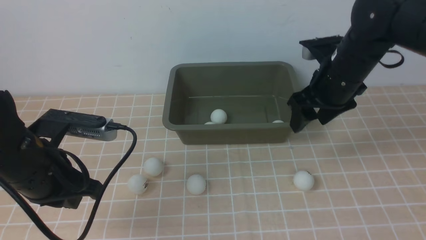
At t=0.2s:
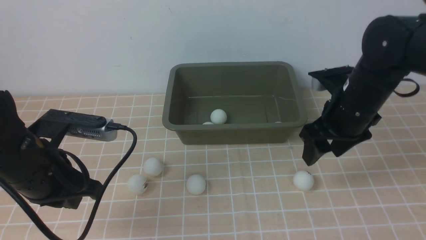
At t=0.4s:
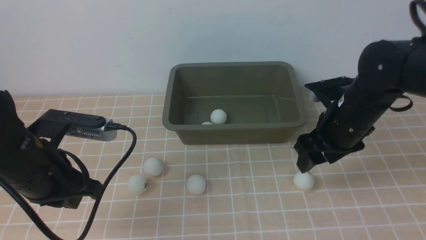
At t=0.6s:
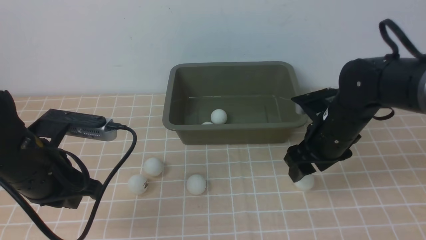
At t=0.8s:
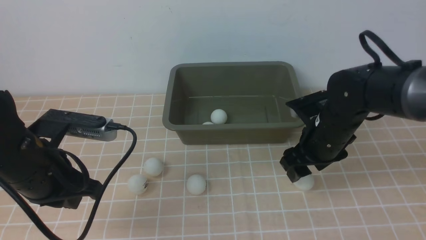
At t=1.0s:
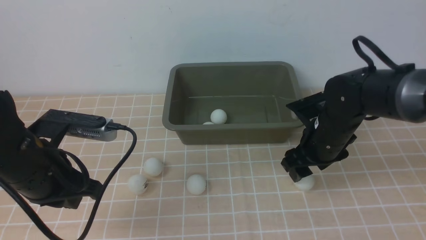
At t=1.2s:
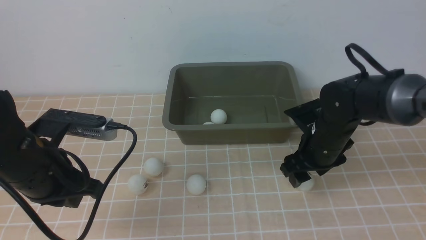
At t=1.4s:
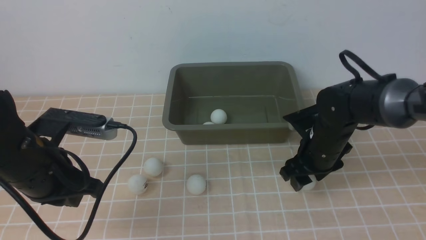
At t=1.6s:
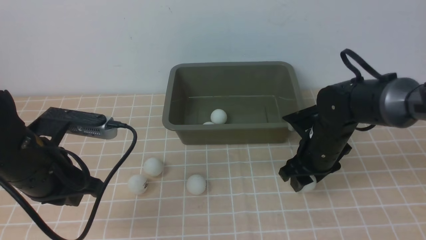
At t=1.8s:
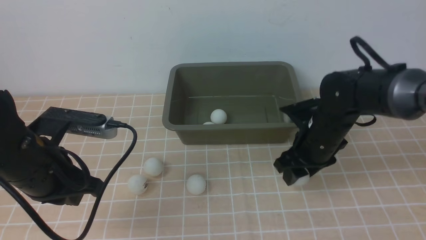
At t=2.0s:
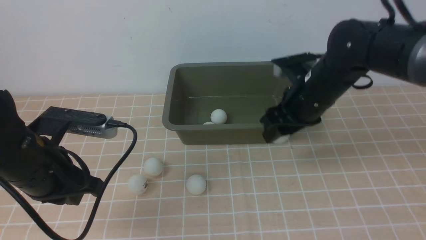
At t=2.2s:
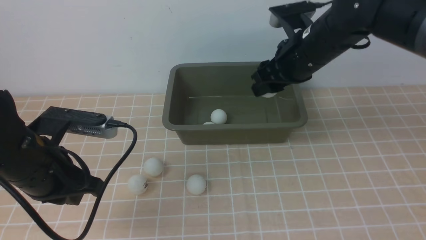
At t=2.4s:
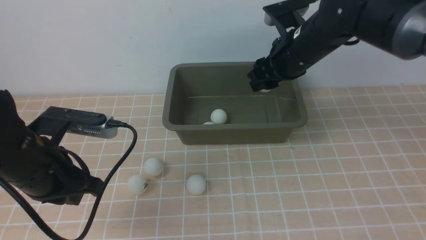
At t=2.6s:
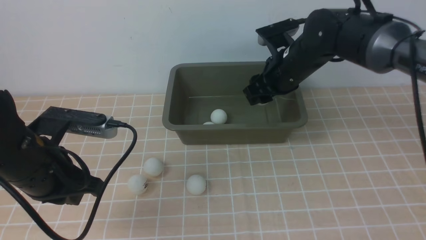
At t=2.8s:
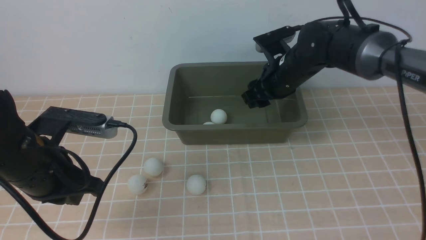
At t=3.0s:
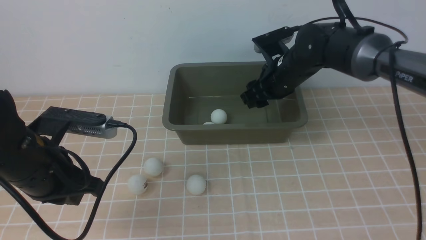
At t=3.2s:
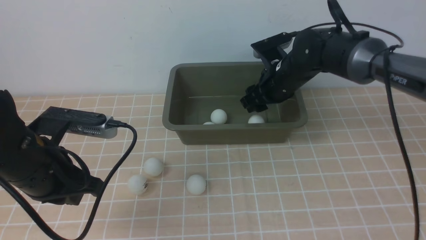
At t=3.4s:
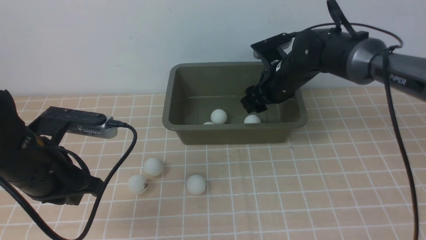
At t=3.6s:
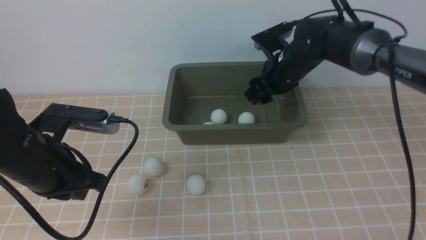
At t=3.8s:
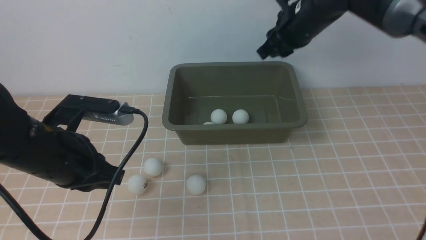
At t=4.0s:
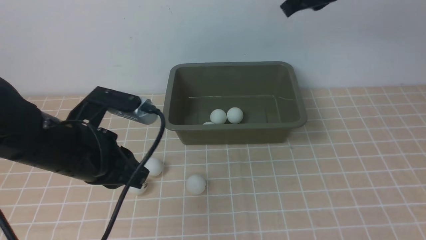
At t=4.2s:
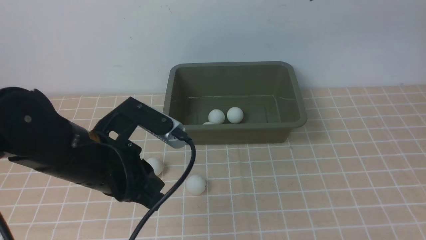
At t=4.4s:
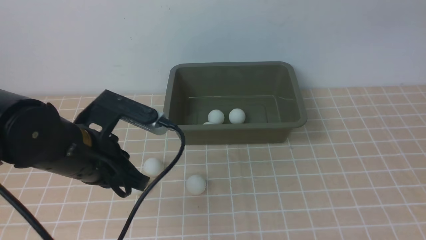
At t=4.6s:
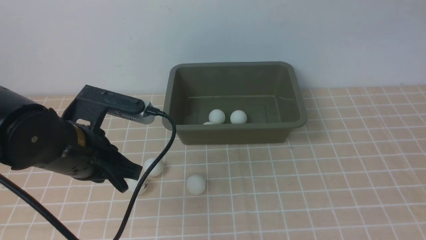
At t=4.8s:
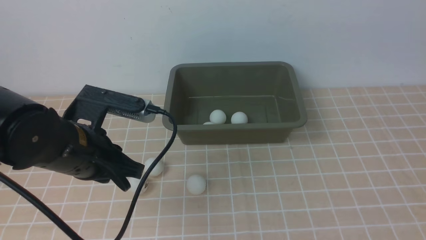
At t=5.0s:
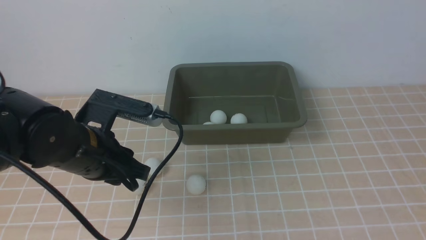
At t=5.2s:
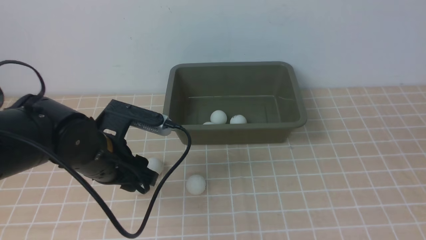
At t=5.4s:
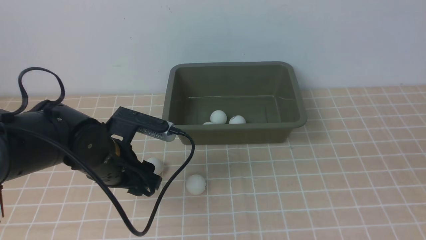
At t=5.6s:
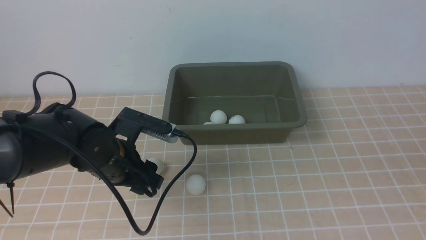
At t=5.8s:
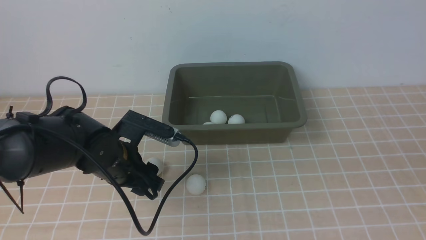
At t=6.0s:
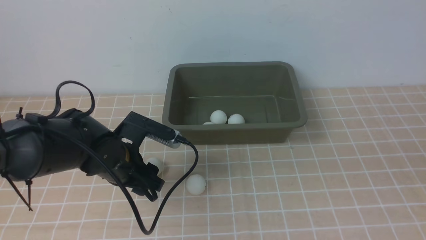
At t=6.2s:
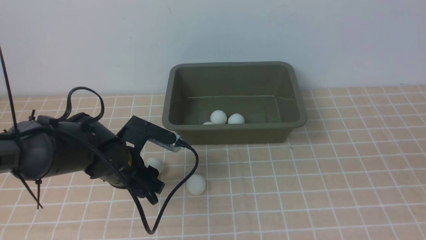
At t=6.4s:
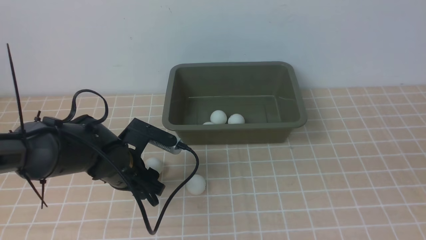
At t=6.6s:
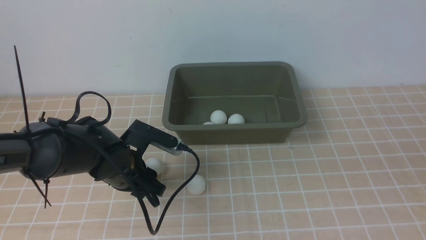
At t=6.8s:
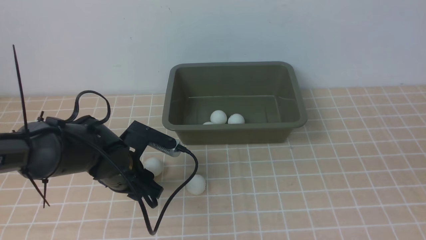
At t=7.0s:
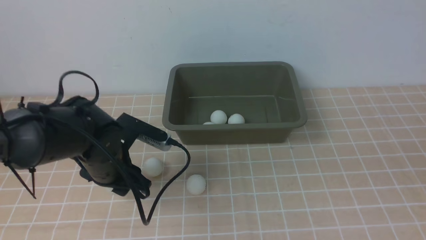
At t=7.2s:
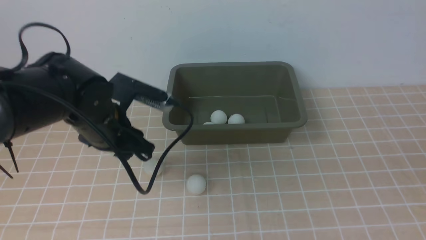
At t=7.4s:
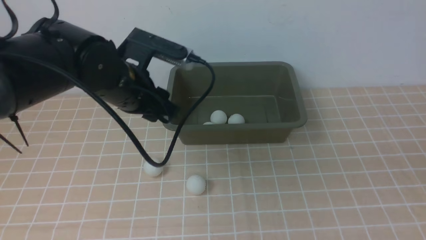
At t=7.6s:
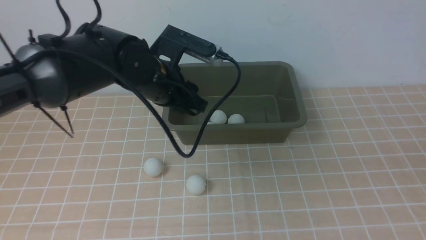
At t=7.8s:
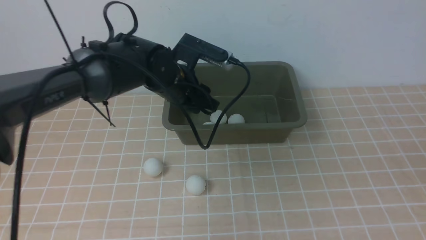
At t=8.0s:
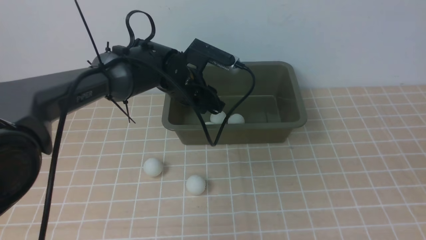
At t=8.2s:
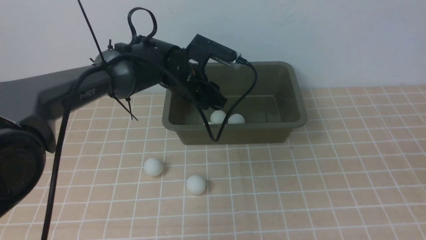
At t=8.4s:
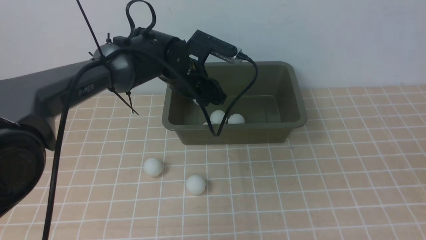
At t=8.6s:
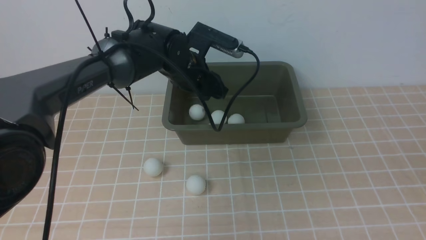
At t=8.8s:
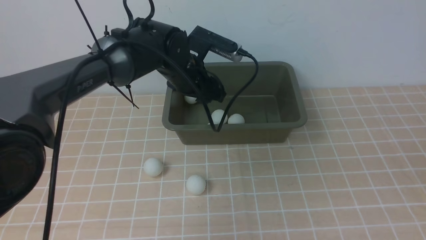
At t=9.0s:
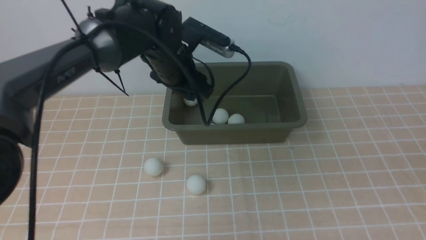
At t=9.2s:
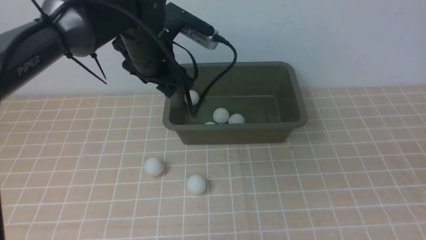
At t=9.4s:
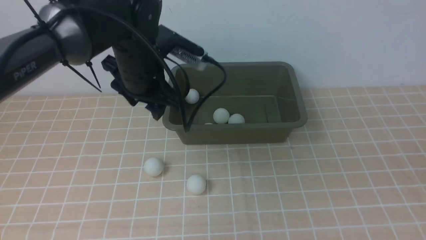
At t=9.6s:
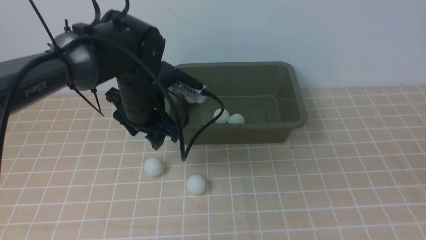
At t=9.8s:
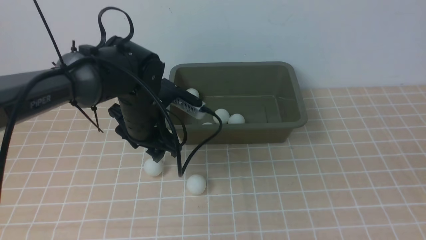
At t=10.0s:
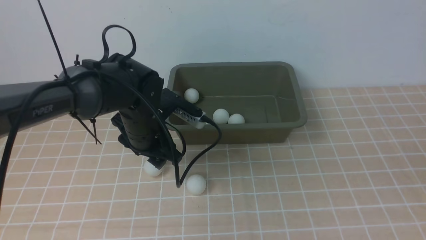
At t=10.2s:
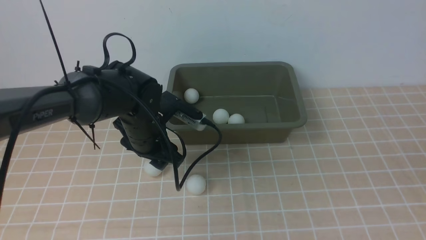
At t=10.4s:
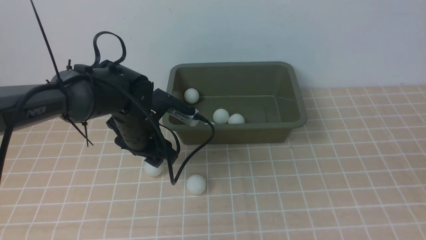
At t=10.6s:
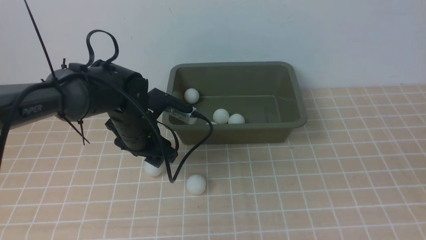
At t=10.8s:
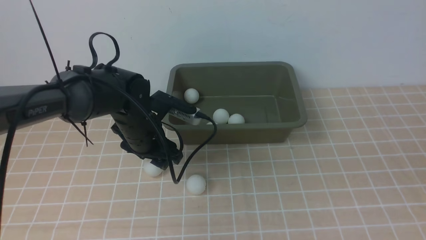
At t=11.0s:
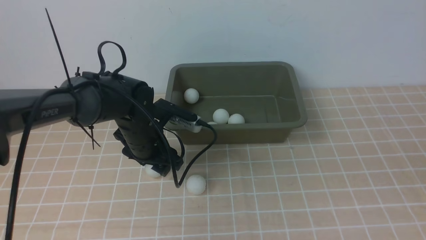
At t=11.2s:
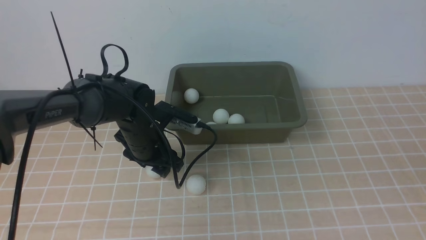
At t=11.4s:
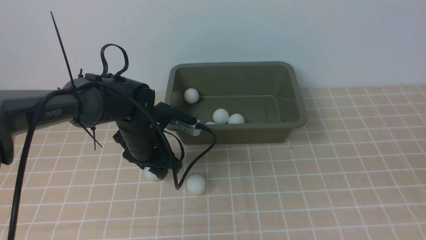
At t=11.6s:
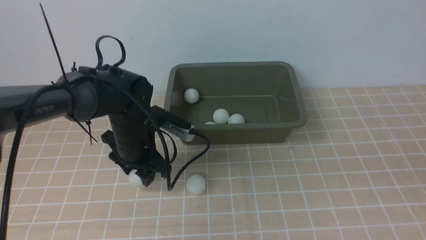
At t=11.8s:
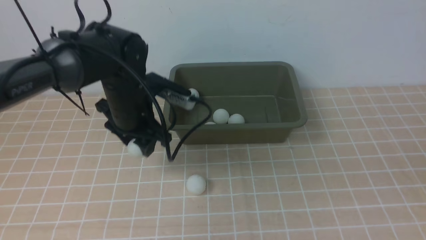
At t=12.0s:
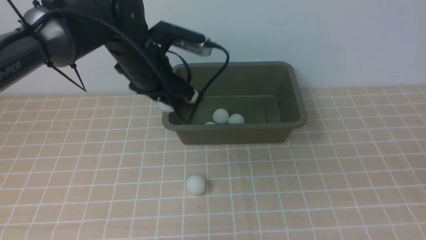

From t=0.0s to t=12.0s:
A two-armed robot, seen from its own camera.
Step, from t=0.0s to t=1.6s: use the right arm to clamp the table tennis ball closest to it.
Step, from t=2.0s to t=3.4s: use the right arm to put the table tennis ball into the box.
Step, from t=3.6s to t=7.0s: use the left arm to clamp the table tennis ball closest to it.
Step, from t=7.2s to t=8.8s: use the left arm to put the table tennis ball into the box.
Step, from t=9.0s to t=11.6s: use the left arm to clamp the table tennis ball closest to it.
From t=0.0s to t=1.6s: The right gripper travels downward by approximately 10 cm.
From t=1.6s to t=3.0s: The right gripper goes approximately 10 cm forward and upward.
From t=3.0s to t=4.4s: The left gripper goes about 5 cm to the right. The right gripper shifts about 30 cm upward and backward, and closes its fingers.
From t=4.4s to t=6.0s: The right gripper is displaced backward by approximately 25 cm, while the left gripper moves downward and forward, about 10 cm, and opens.
From t=6.0s to t=7.6s: The left gripper travels upward, forward and to the right by some 15 cm.
From t=9.0s to t=10.4s: The left gripper travels downward and backward by roughly 10 cm.
From t=10.4s to t=12.0s: The left gripper is displaced upward by approximately 10 cm.

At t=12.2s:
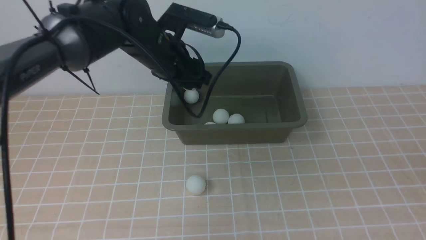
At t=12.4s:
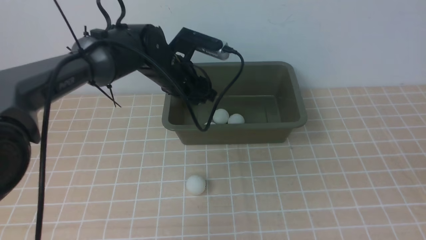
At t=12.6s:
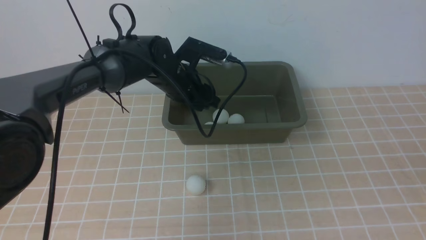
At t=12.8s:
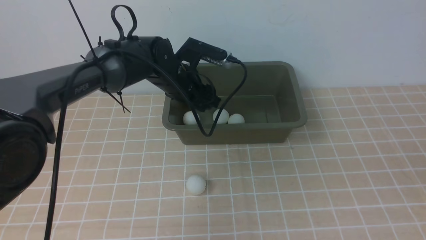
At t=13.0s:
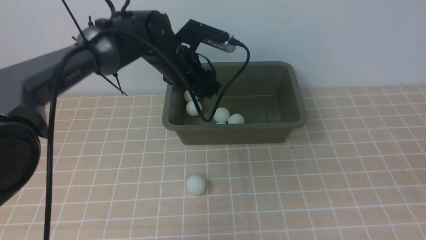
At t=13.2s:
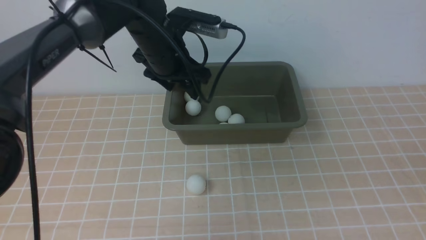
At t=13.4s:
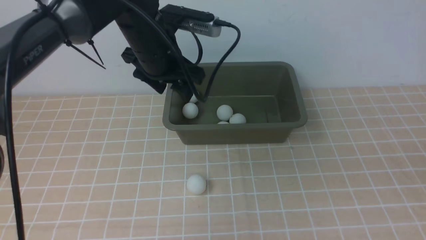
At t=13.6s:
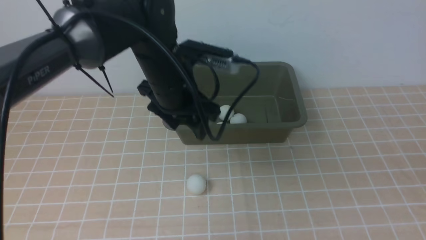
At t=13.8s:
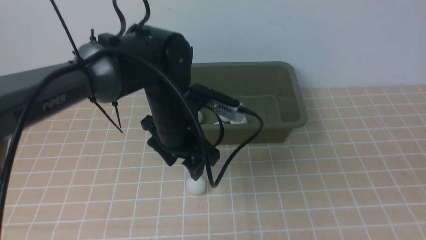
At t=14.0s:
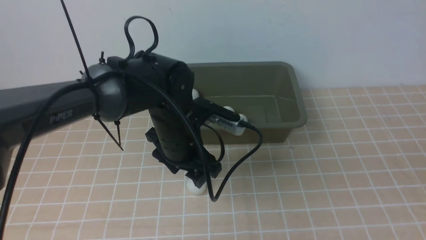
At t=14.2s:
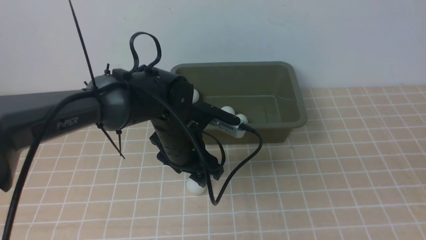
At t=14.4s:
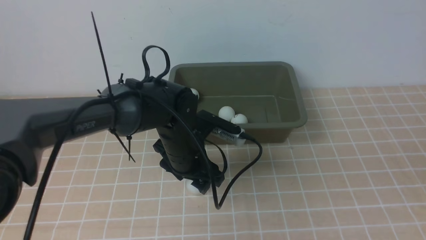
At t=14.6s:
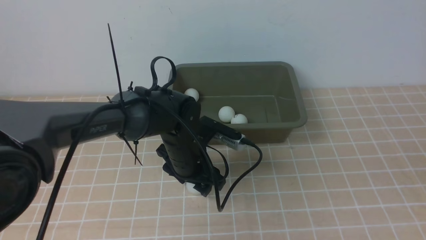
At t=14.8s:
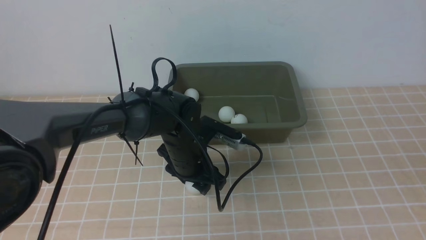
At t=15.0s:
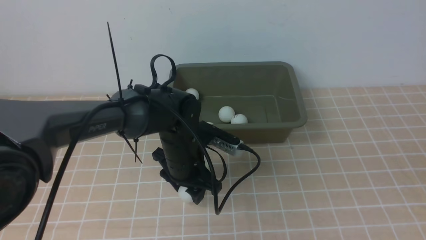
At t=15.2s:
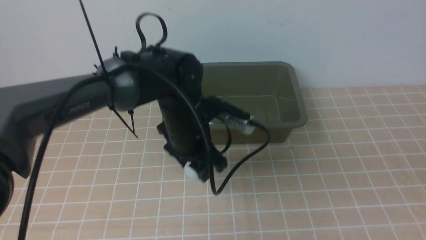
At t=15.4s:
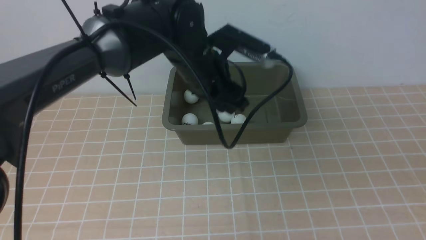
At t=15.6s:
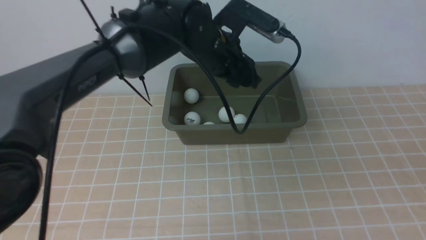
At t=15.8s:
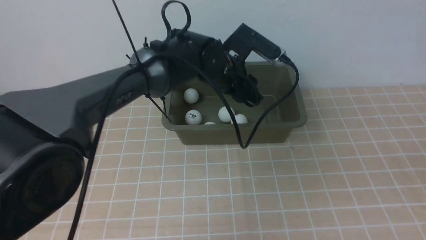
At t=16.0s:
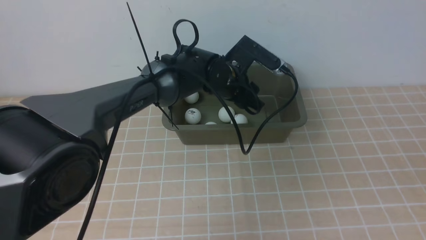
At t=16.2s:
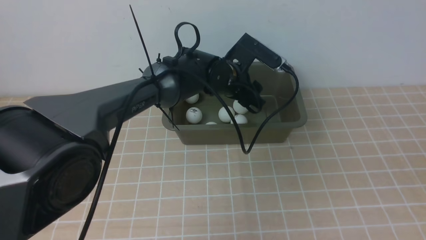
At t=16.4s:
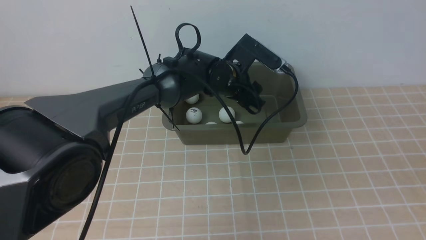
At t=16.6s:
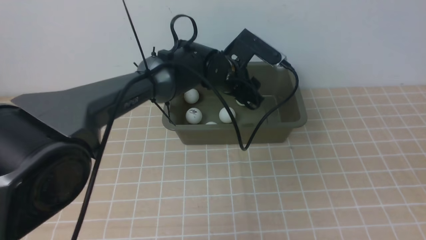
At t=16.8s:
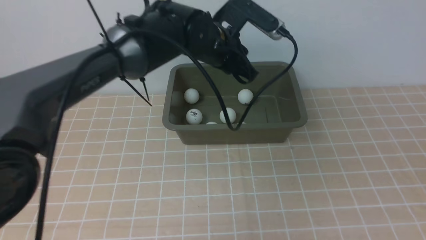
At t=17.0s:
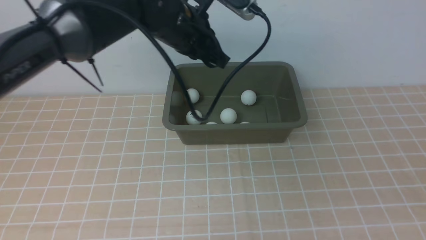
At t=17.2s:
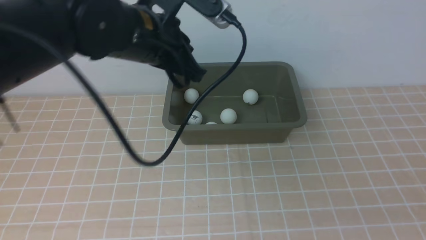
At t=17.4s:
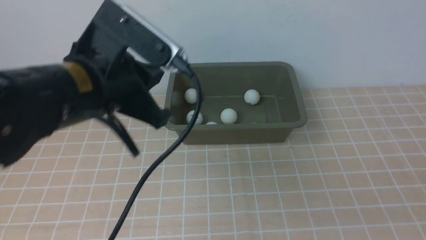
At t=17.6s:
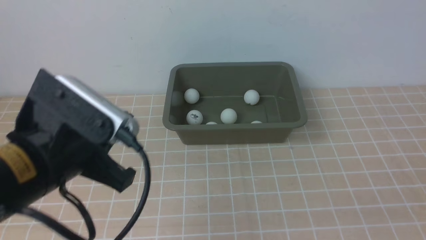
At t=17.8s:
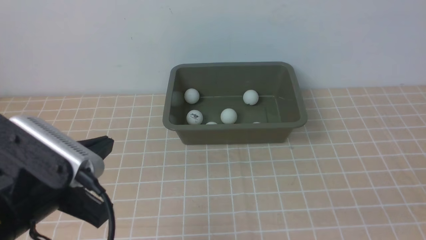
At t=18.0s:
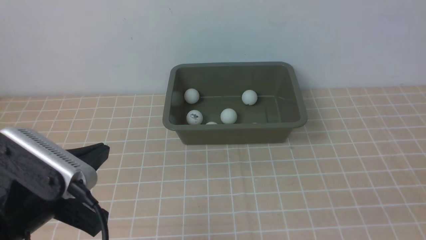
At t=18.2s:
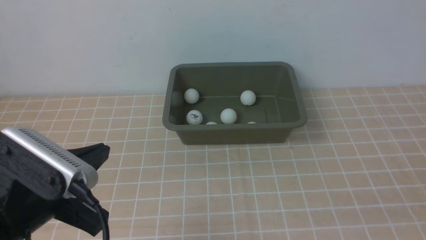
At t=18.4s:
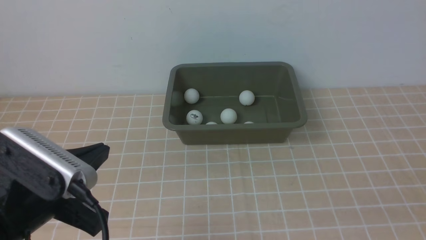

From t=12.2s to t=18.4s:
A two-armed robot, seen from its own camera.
Step, from t=12.2s to t=13.0s: use the left arm to put the table tennis ball into the box.
Step, from t=13.2s to t=15.2s: use the left arm to clamp the table tennis ball closest to it.
Step, from t=15.4s to t=16.6s: use the left arm to put the table tennis ball into the box.
From t=12.2s to t=13.8s: The left gripper shifts roughly 10 cm backward.
From t=13.8s to t=15.4s: The left gripper goes downward and returns, roughly 10 cm each way.
From t=15.4s to t=16.8s: The left gripper moves roughly 5 cm downward and comes back, and closes up.
From t=16.8s to t=18.4s: The left gripper shifts roughly 35 cm backward and to the left. The right gripper shifts approximately 10 cm downward.